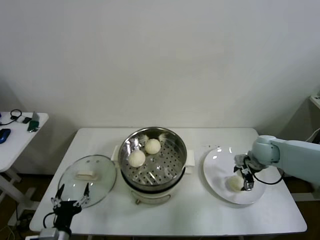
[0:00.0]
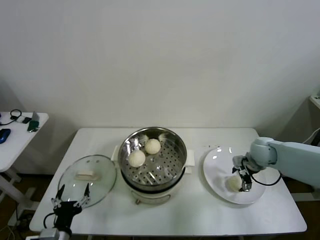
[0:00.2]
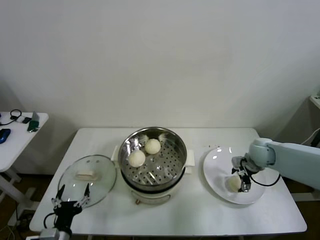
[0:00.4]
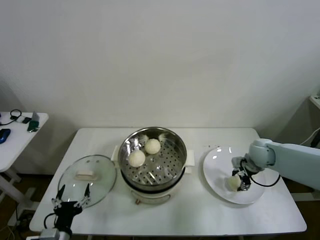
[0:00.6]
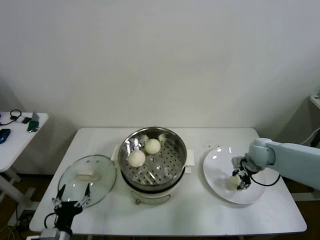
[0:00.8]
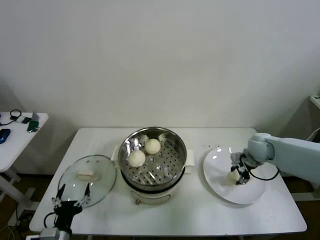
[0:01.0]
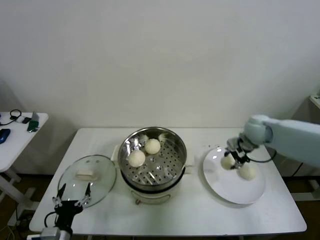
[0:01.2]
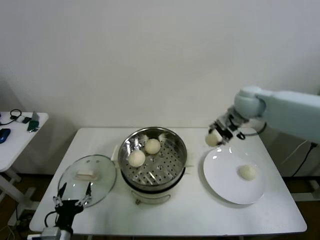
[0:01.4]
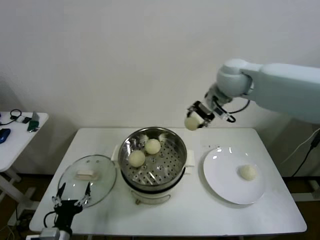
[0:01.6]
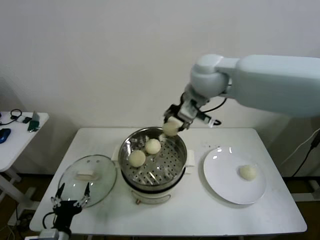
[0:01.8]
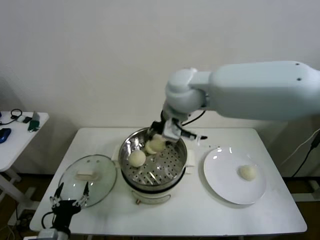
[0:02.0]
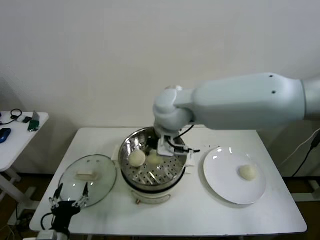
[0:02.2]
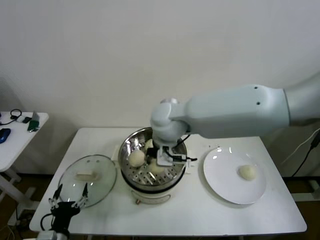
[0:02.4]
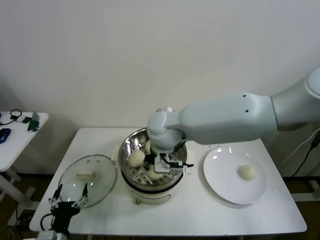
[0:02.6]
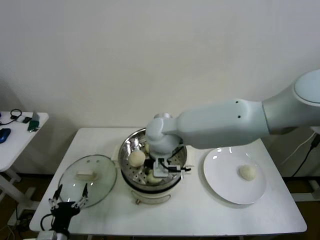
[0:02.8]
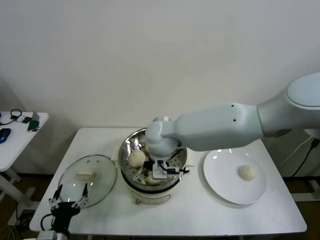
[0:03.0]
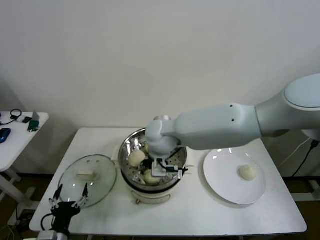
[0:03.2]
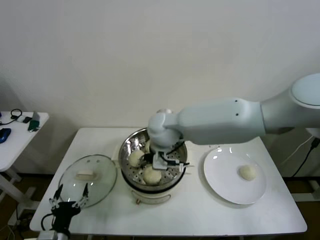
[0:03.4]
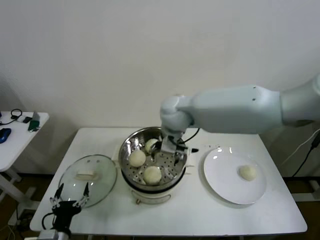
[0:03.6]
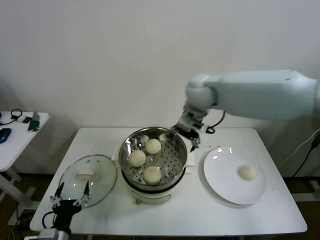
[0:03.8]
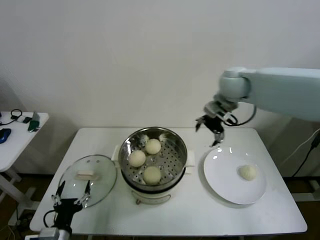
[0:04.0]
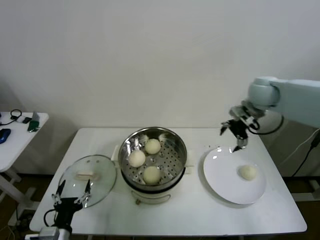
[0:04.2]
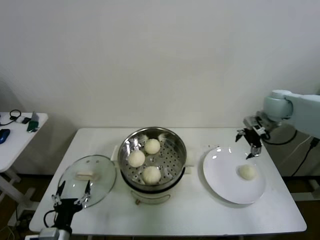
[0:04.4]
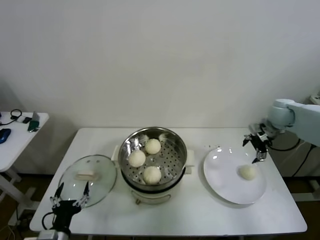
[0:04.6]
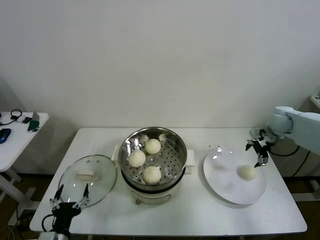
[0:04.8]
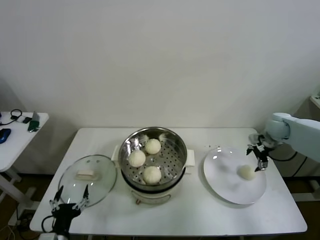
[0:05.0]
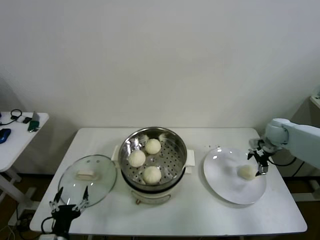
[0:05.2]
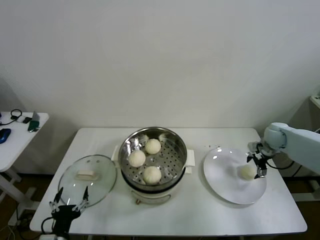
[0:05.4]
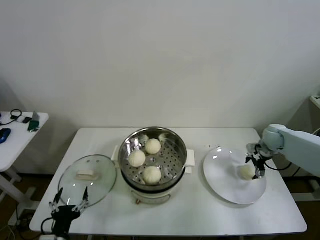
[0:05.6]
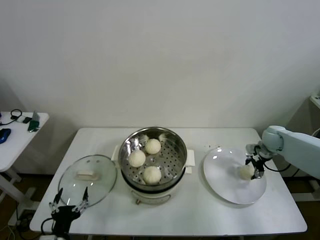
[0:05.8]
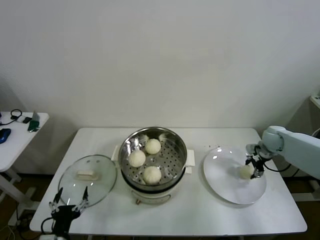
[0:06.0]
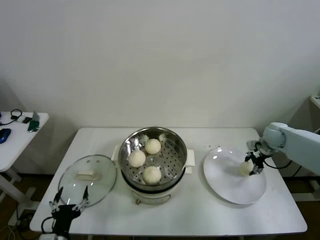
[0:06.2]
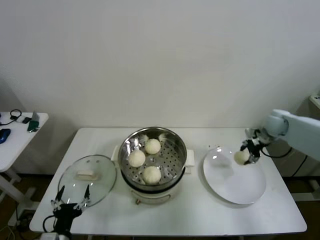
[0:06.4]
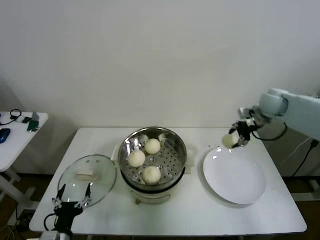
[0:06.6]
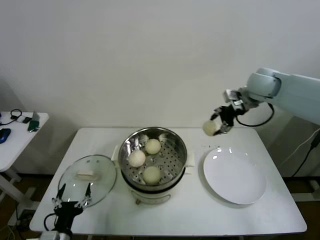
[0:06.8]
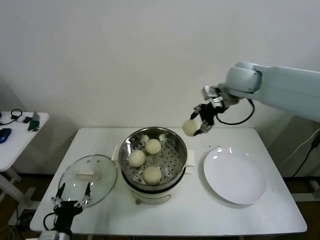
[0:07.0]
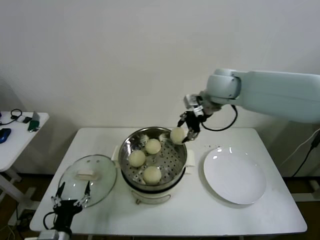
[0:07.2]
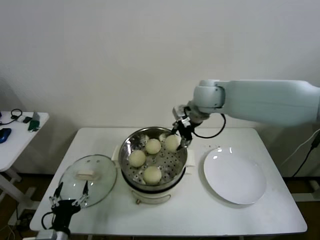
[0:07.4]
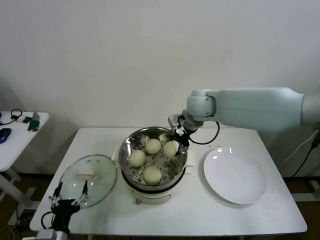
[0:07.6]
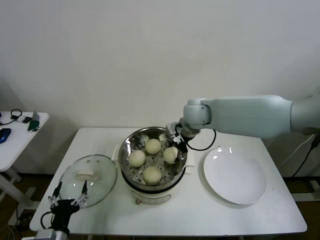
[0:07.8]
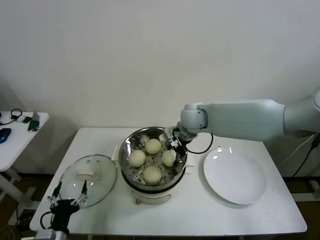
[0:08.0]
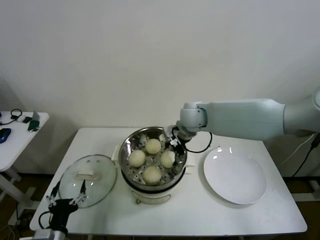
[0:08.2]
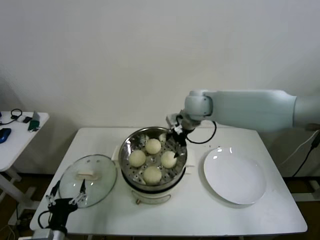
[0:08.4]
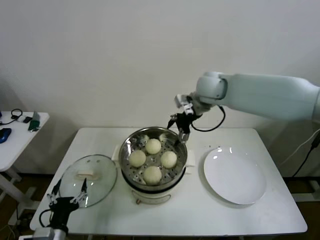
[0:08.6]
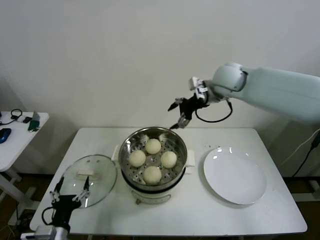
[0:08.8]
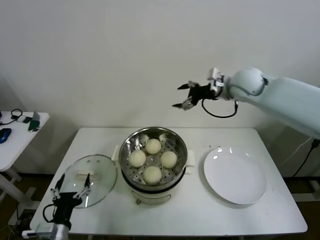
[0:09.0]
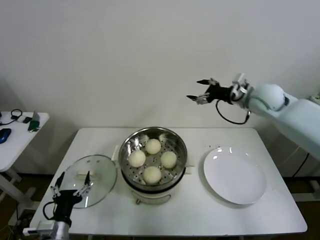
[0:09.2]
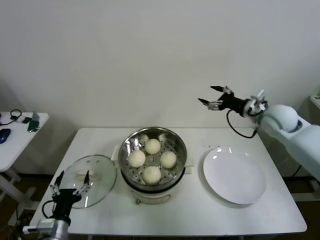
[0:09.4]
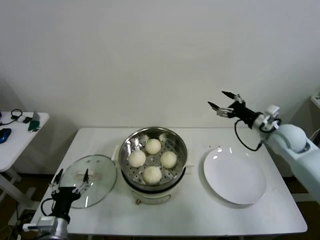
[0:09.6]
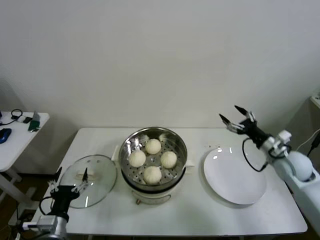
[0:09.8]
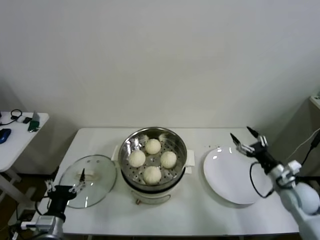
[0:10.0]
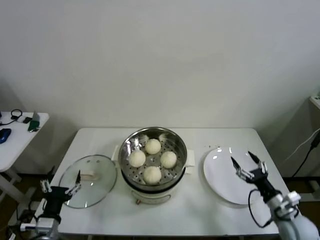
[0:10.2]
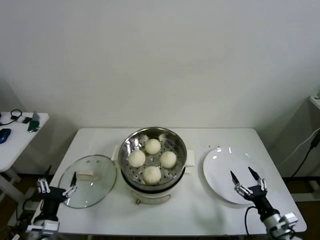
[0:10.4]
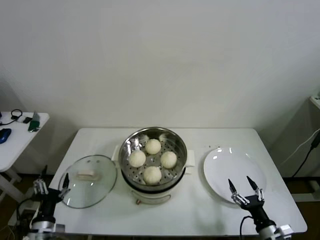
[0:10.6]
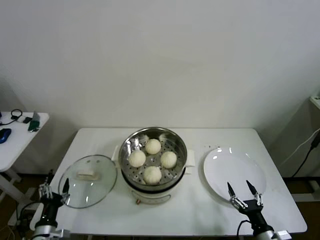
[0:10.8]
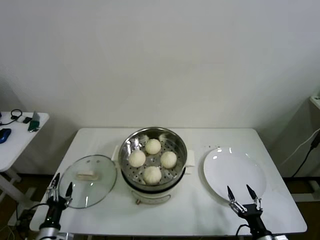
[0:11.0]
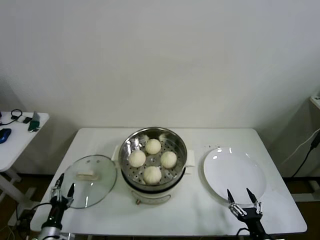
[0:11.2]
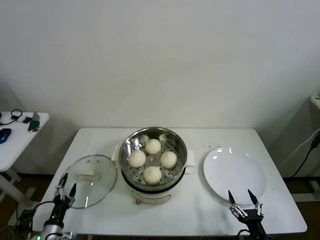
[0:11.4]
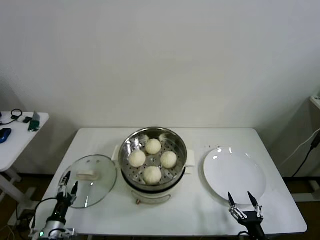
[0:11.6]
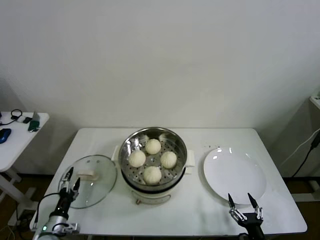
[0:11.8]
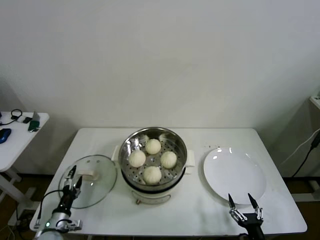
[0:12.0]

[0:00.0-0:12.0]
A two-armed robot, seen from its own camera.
Step, 1.0 to 3.2 s: Place the baozi on the steamer with right gripper.
Step, 3.6 to 6.0 s: Grasp the baozi in the plate with right gripper.
Step, 6.2 to 8.0 s: Place the baozi on the steamer with right gripper.
0.0 to 1.6 s: The right gripper heads upward and to the left, covering about 35 cm, and closes.
1.6 to 3.0 s: The right gripper goes about 25 cm to the left, downward and backward.
3.0 to 4.4 s: The right gripper heads to the right, covering roughly 40 cm, and opens up.
4.4 to 6.0 s: The right gripper travels downward by approximately 15 cm, and closes.
6.0 to 7.6 s: The right gripper shifts approximately 35 cm to the left and upward.
7.6 to 9.0 s: The right gripper moves to the right, approximately 15 cm, and opens its fingers.
9.0 to 10.4 s: The right gripper is displaced downward and backward by roughly 50 cm. The left gripper changes place by roughly 5 cm.
10.4 to 12.0 s: The right gripper is displaced backward and to the left by roughly 10 cm; the left gripper travels downward and forward by some 15 cm.

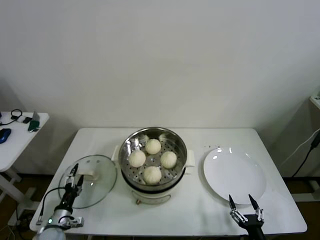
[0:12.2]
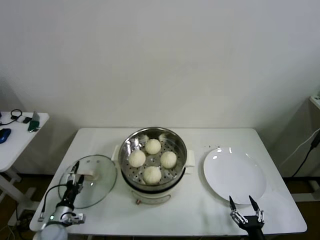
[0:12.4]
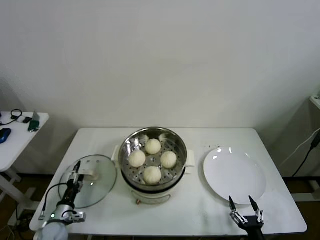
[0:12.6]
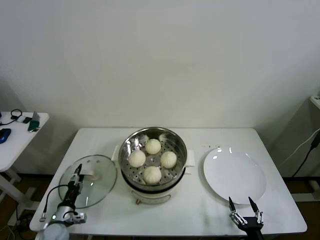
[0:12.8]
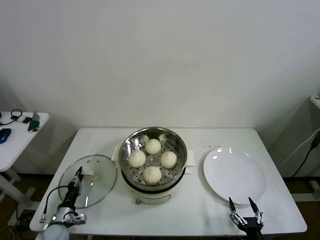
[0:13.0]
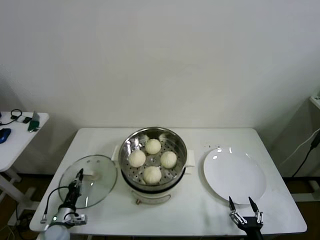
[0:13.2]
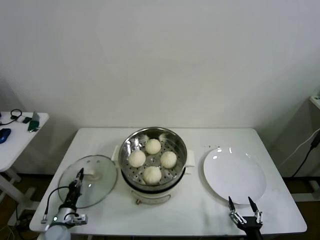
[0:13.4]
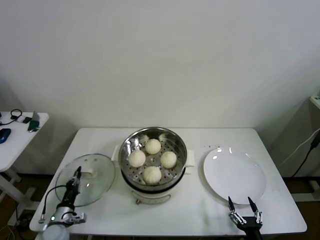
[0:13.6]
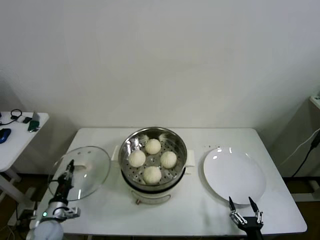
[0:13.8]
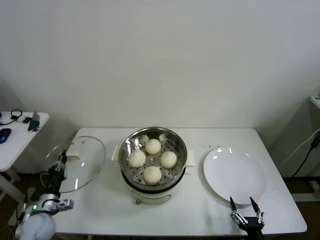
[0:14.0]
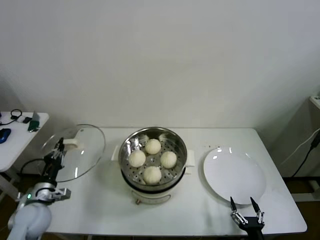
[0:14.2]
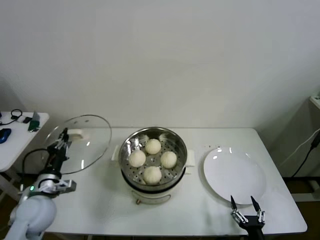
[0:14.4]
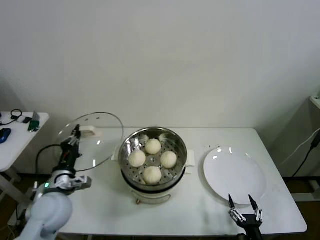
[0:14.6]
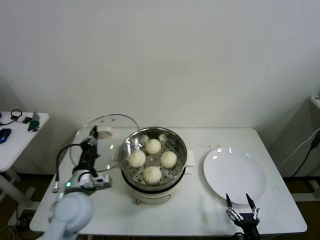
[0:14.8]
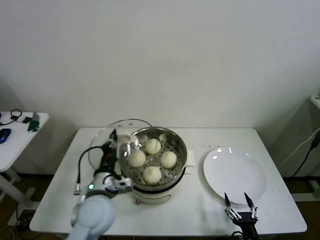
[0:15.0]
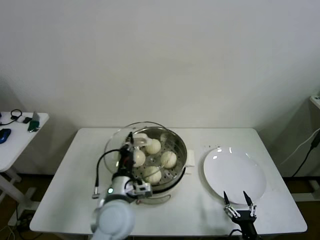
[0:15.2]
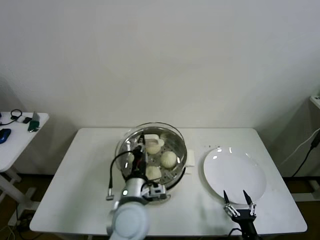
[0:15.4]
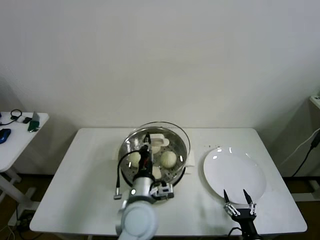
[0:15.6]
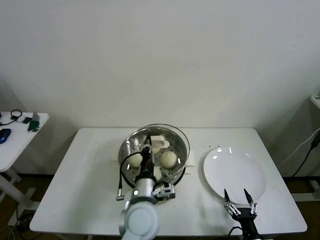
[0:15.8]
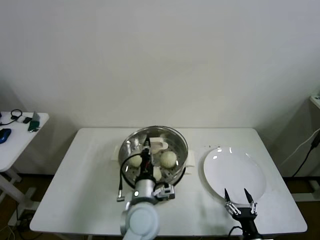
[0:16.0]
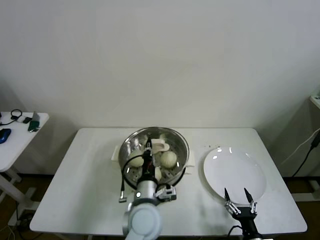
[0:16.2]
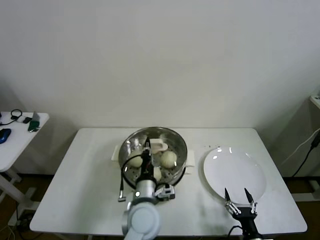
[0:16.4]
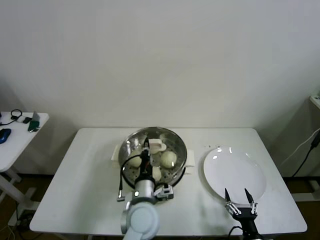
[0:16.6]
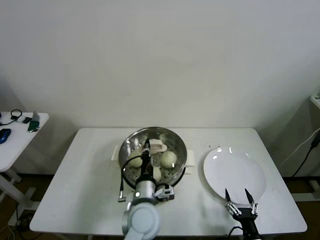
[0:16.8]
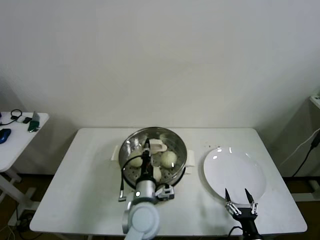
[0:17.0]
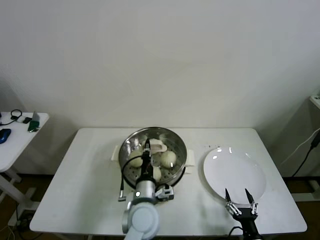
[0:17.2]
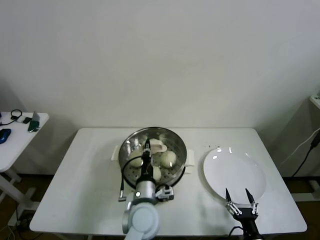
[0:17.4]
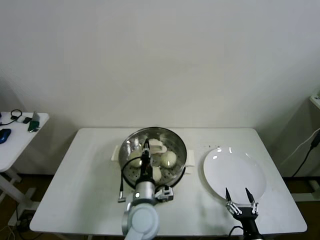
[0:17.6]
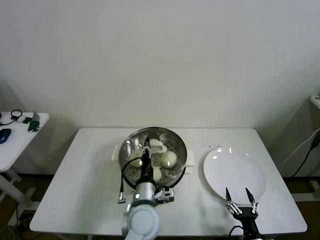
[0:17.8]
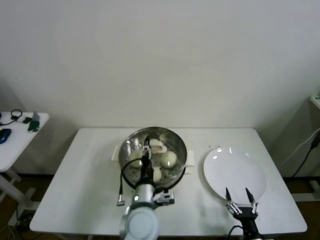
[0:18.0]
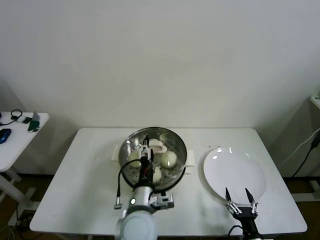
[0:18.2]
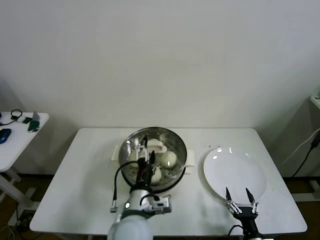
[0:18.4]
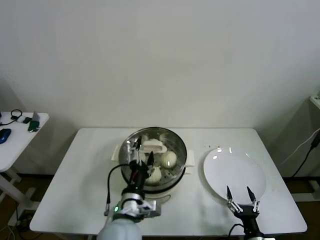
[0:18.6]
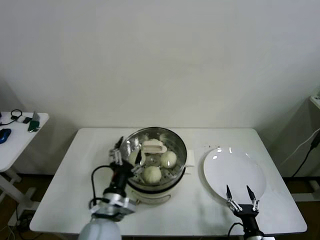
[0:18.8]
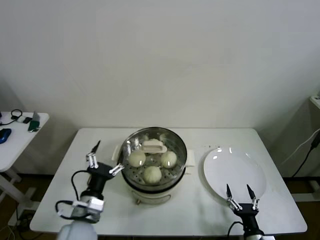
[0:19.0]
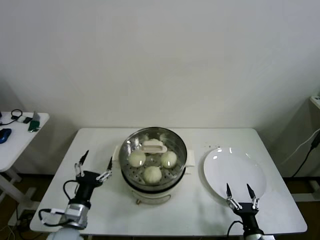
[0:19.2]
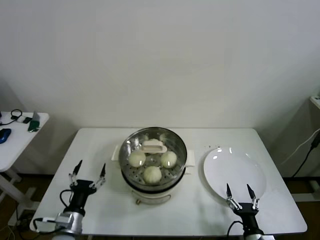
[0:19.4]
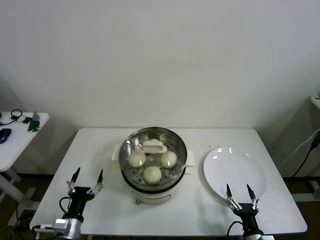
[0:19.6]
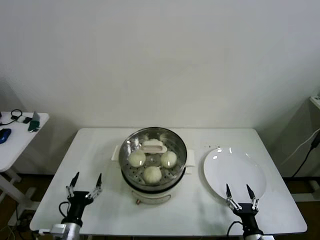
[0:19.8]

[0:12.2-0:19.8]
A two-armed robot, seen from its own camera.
Step, 13.4 to 17.6 s: Place the pot lid on the steamer with left gripper.
12.2 to 13.8 s: The left gripper closes.
13.8 to 15.2 s: The left gripper heads to the right and upward, covering about 35 cm.
15.2 to 16.8 s: The left gripper heads to the right, covering some 5 cm.
16.8 to 18.2 s: The left gripper opens its fingers.
18.2 to 19.8 s: The left gripper shifts approximately 30 cm to the left and downward.

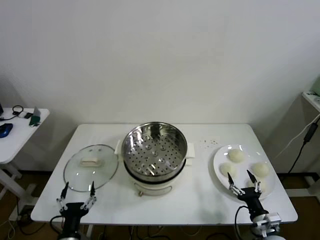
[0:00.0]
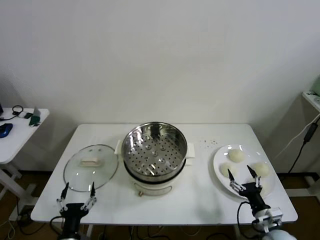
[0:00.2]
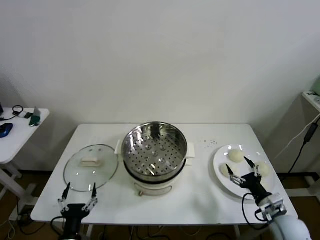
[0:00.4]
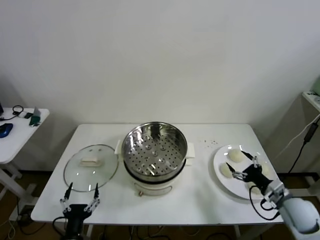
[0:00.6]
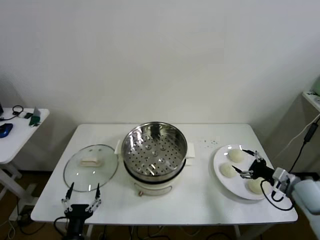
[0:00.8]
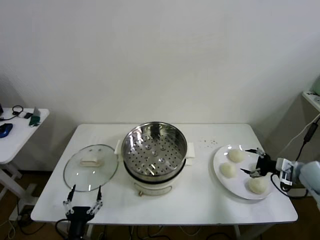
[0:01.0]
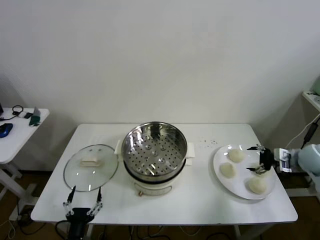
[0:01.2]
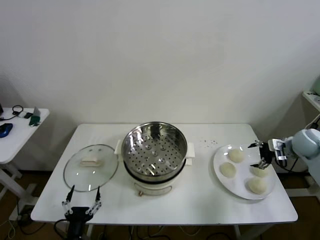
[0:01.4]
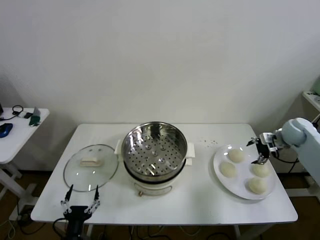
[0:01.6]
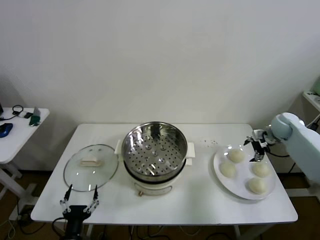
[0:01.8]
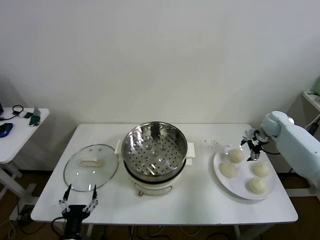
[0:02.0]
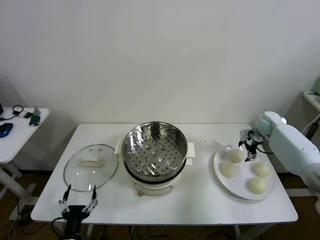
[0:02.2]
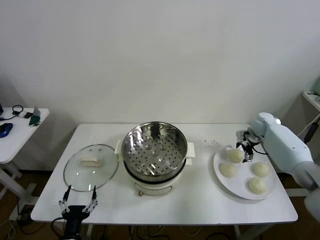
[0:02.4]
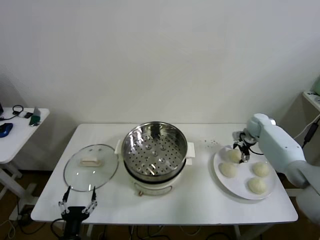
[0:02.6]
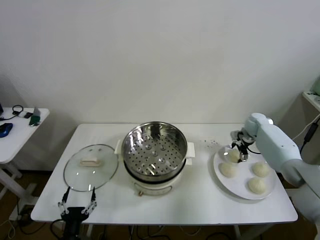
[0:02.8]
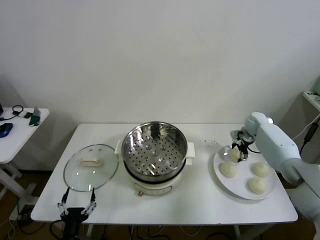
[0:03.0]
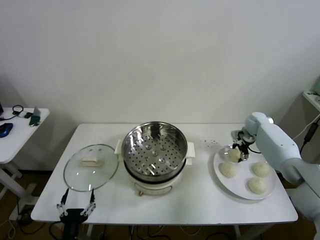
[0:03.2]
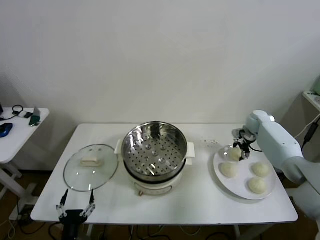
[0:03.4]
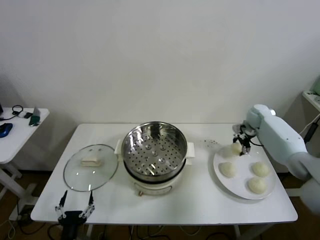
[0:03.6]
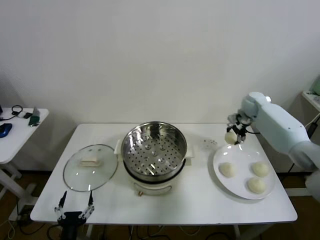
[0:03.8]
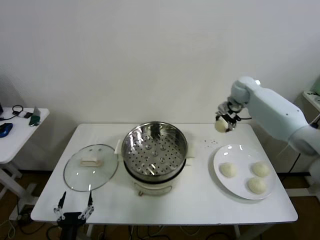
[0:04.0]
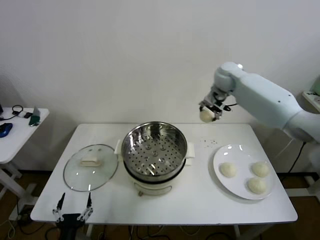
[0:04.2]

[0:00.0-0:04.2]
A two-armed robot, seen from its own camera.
Step, 0.0 to 3.0 s: Grasp the baozi in the plate with right gripper.
1.4 to 2.8 s: The right gripper shifts about 15 cm forward, to the left and downward.
2.8 to 4.2 s: The right gripper goes about 30 cm upward and to the left, and closes its fingers.
